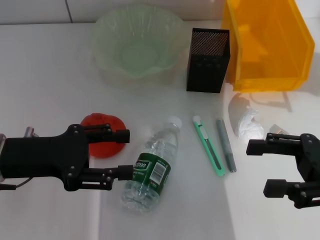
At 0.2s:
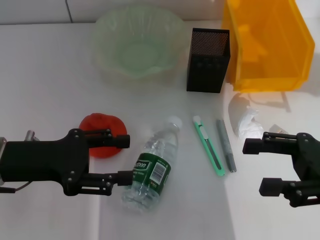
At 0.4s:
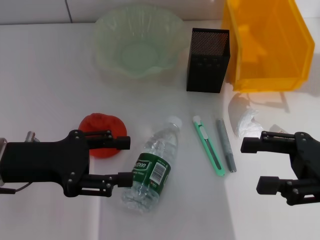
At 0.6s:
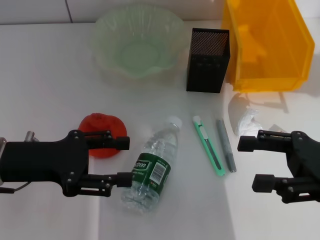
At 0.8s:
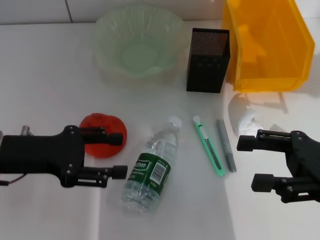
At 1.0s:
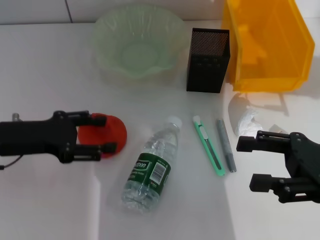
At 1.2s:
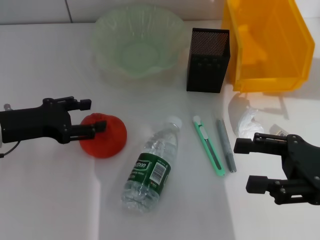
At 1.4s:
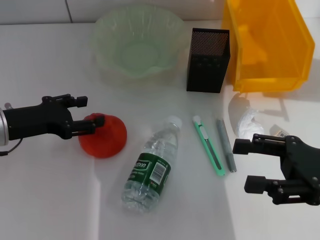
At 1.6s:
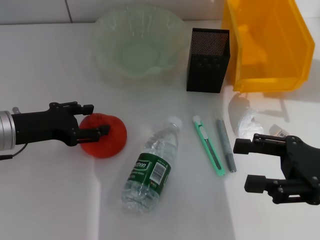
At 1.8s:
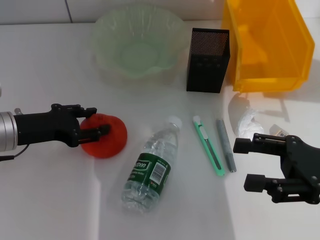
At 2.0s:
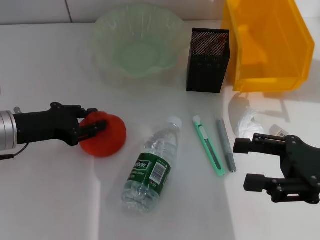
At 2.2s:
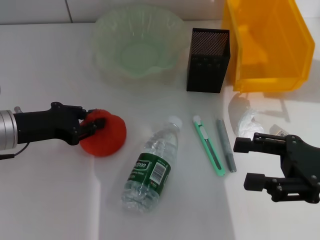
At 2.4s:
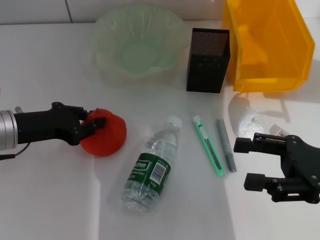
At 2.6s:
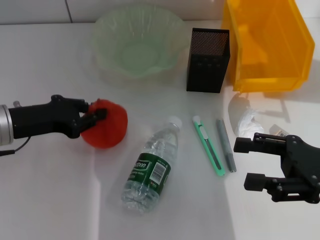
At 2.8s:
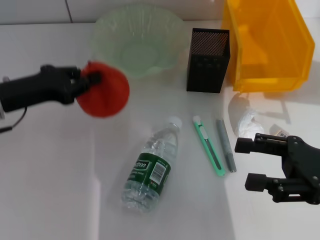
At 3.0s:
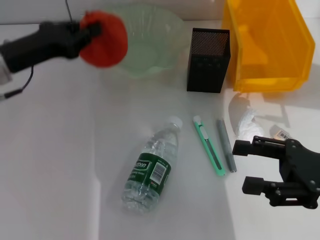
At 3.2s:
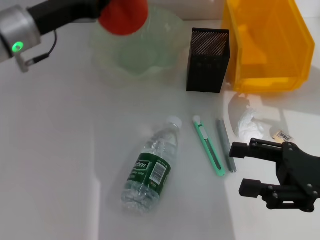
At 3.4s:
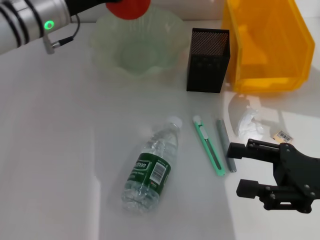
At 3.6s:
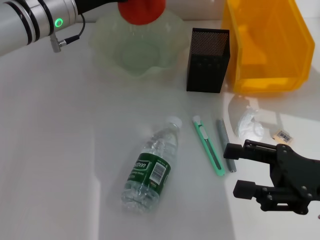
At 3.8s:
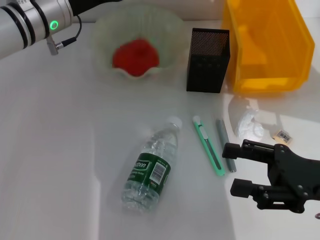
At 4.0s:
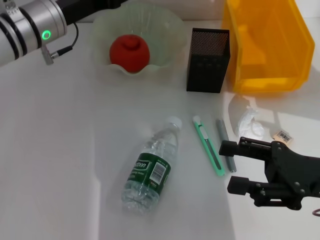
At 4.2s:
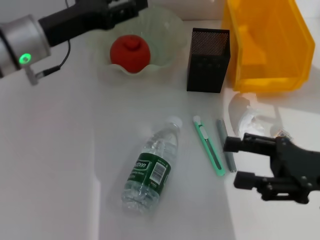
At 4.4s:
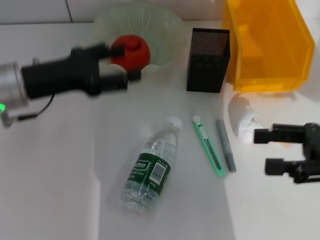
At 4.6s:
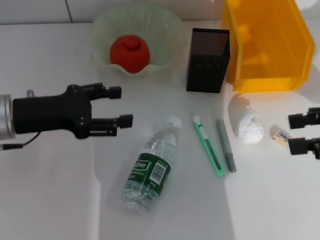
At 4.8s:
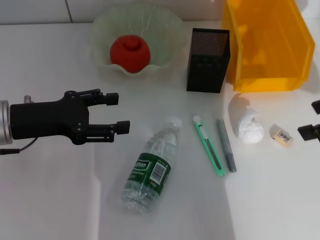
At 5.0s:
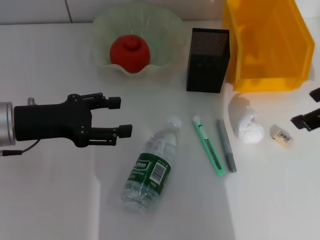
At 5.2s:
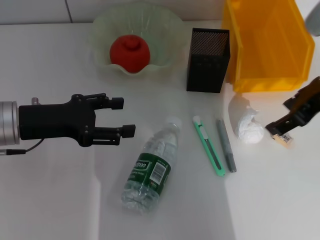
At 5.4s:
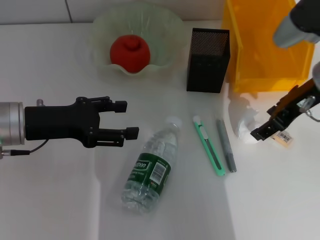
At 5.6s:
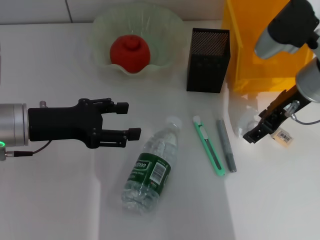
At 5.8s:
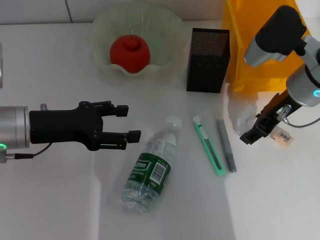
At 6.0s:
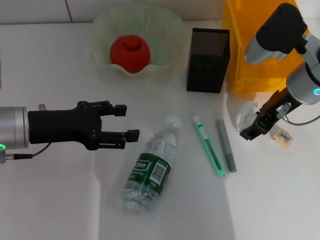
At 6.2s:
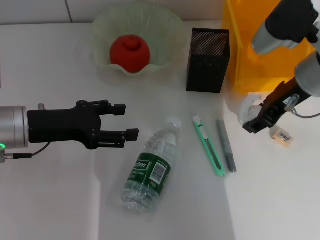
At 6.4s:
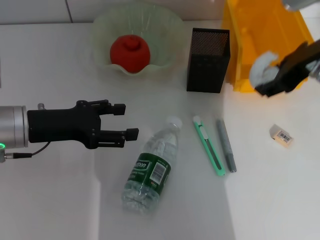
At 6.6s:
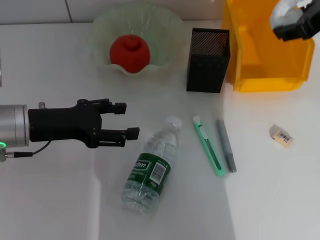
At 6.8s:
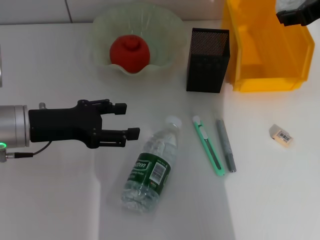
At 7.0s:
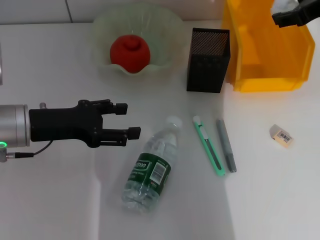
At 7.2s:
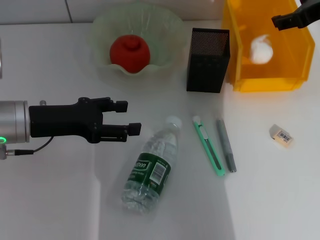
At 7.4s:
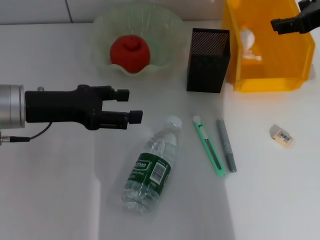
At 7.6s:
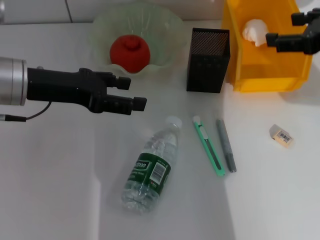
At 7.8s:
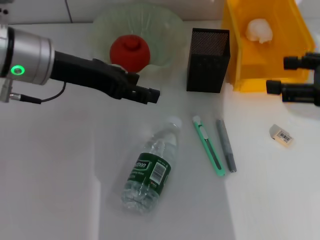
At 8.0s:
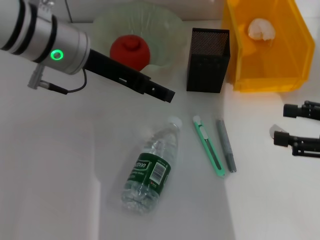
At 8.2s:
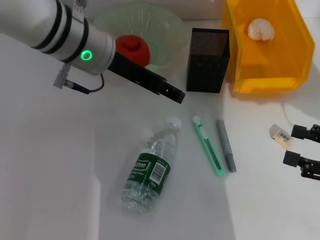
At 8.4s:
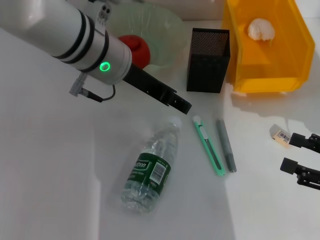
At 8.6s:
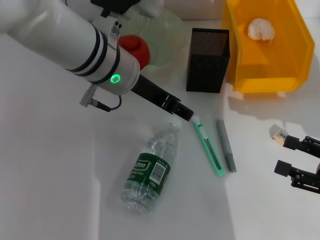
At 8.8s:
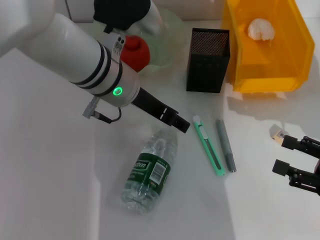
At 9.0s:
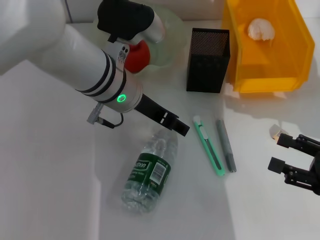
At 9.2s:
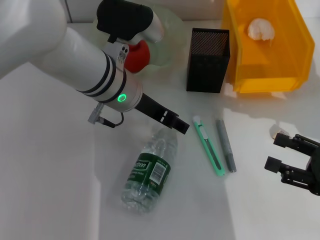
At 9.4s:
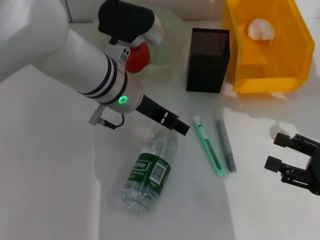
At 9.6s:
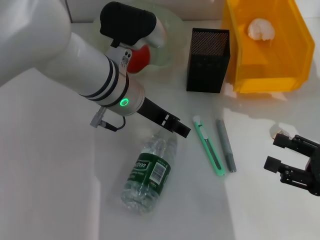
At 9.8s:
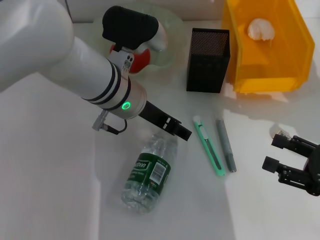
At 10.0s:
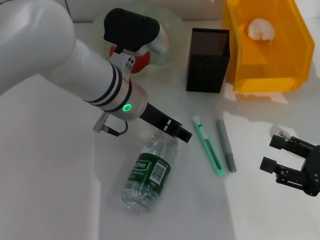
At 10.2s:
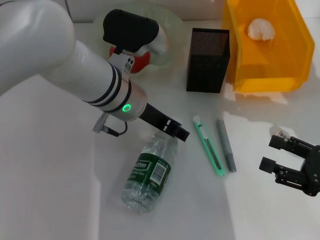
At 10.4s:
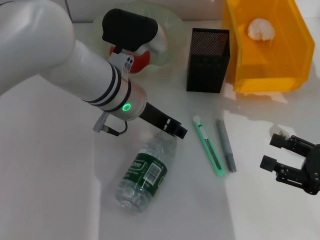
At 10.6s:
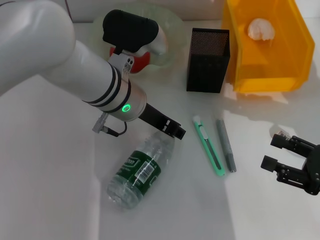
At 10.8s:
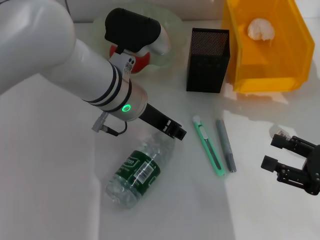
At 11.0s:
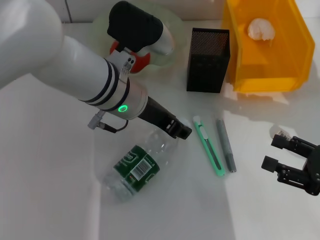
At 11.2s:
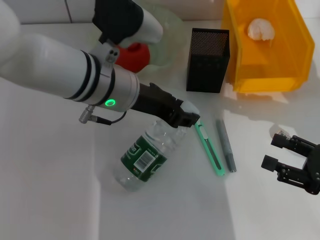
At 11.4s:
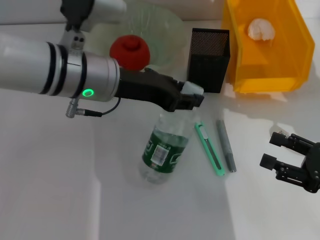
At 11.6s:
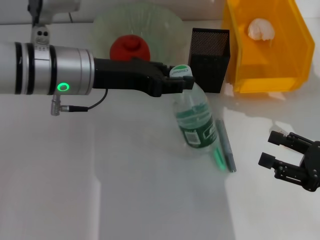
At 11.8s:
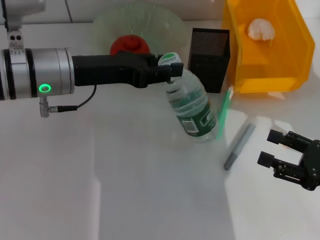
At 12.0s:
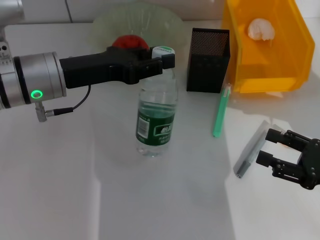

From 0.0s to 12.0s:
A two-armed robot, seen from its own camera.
Step, from 0.0s to 2.2s: Grab the orange with the left hand.
Step, from 2.4s to 4.0s: Place the orange into the fruit bowl with the left hand.
Step, from 4.2s to 5.8s: Grab the paper ball with the right hand.
Step, from 6.0s to 7.6s: Place the paper ball into the trash can with the right hand.
Step, from 7.8s to 10.6s: Grab the water bottle with the left hand.
From 0.0s to 1.6s: The left gripper changes place by about 5 cm.
From 1.6s to 3.0s: The left gripper goes some 5 cm upward, and closes.
From 3.0s to 4.4s: The left gripper reaches roughly 10 cm forward, then returns, and opens. Meanwhile the right gripper moves some 5 cm.
From 4.4s to 6.0s: The right gripper goes approximately 15 cm forward and to the left.
From 6.0s to 7.6s: The right gripper goes approximately 15 cm to the right, upward and backward. Meanwhile the left gripper is displaced upward by approximately 10 cm.
From 7.6s to 9.0s: The left gripper travels to the right by about 15 cm; the right gripper travels downward and backward by approximately 20 cm.
From 9.0s to 10.4s: The grippers stay close to where they were, moving slightly.
From 10.4s to 12.0s: The left gripper shifts roughly 10 cm to the left, and closes up.

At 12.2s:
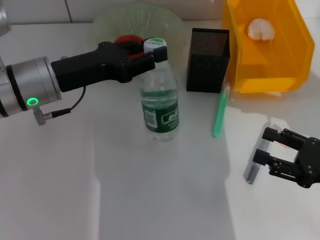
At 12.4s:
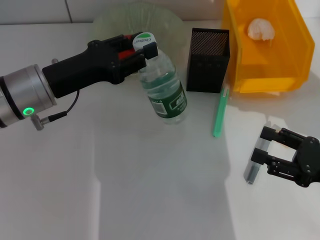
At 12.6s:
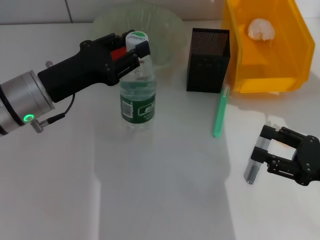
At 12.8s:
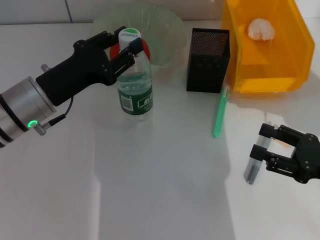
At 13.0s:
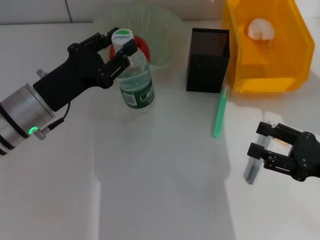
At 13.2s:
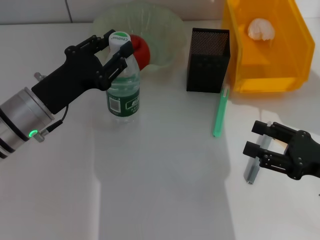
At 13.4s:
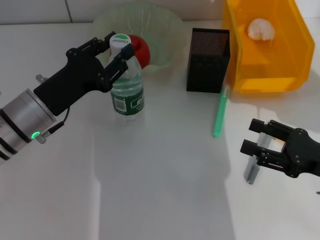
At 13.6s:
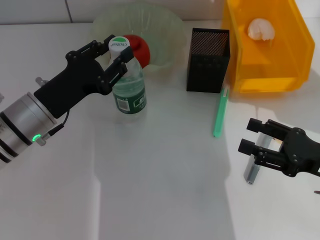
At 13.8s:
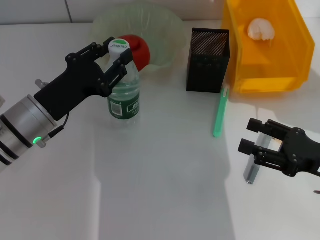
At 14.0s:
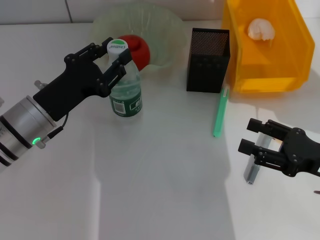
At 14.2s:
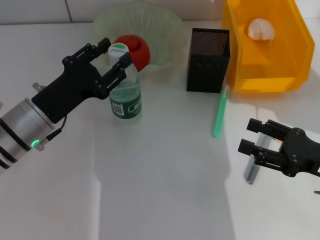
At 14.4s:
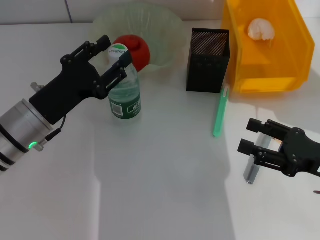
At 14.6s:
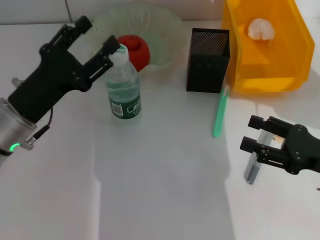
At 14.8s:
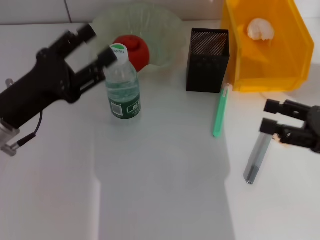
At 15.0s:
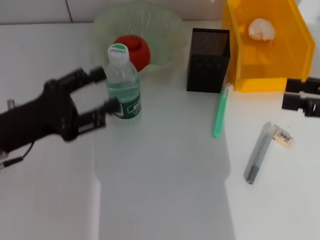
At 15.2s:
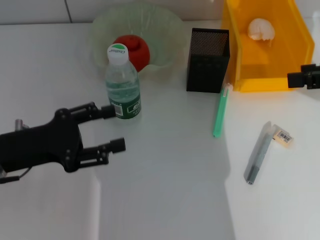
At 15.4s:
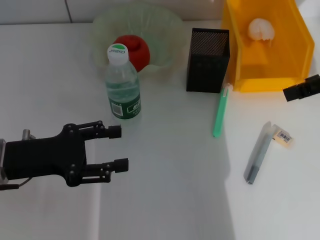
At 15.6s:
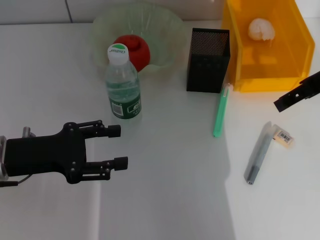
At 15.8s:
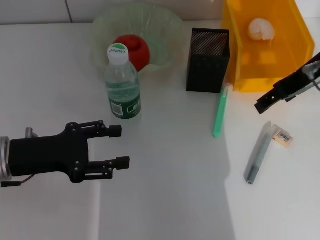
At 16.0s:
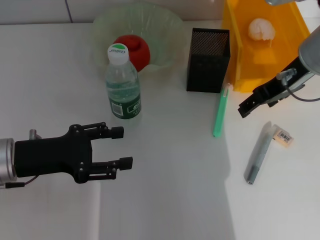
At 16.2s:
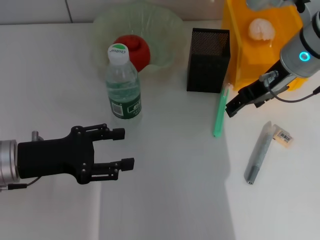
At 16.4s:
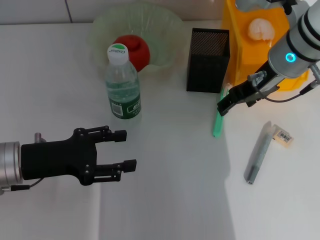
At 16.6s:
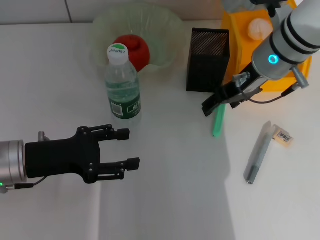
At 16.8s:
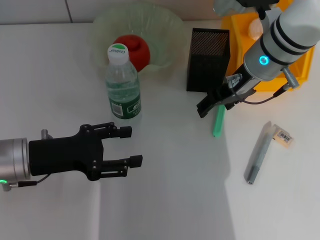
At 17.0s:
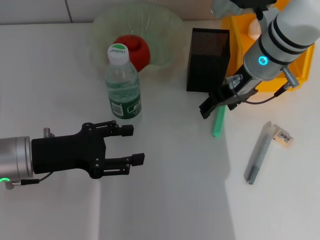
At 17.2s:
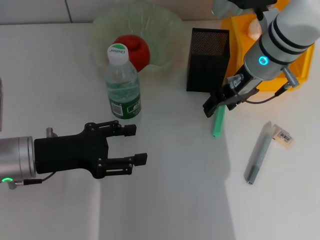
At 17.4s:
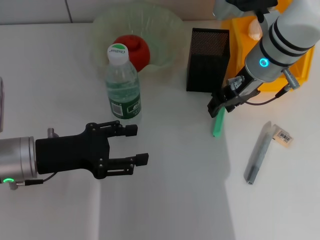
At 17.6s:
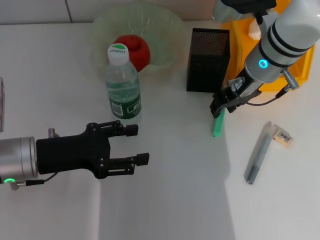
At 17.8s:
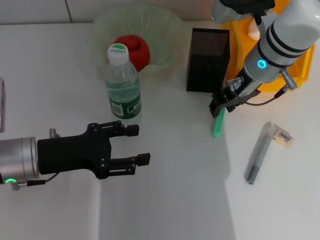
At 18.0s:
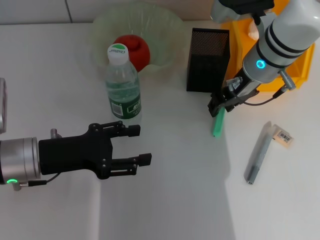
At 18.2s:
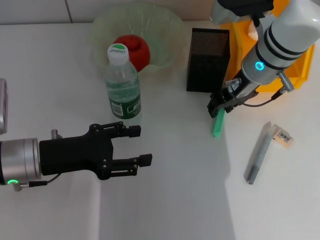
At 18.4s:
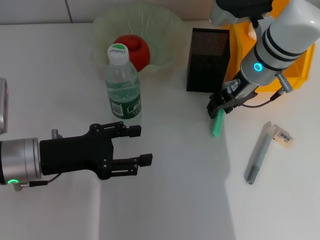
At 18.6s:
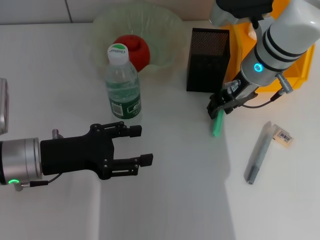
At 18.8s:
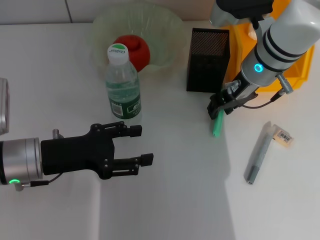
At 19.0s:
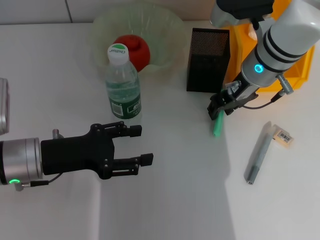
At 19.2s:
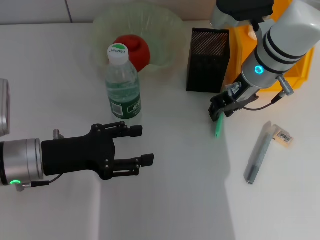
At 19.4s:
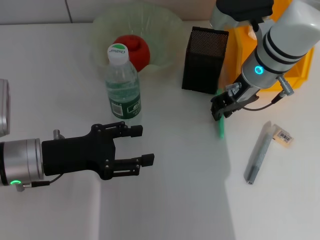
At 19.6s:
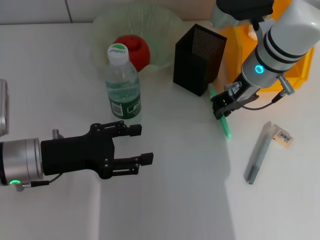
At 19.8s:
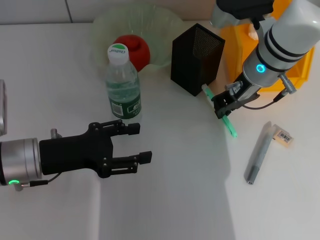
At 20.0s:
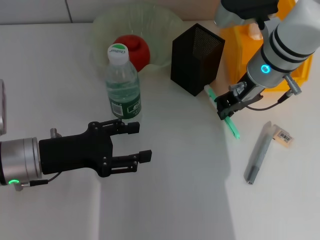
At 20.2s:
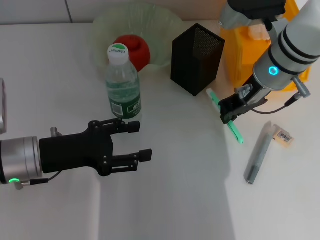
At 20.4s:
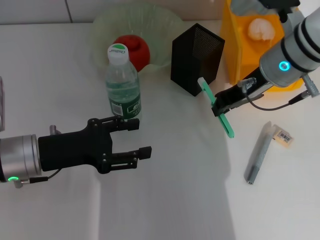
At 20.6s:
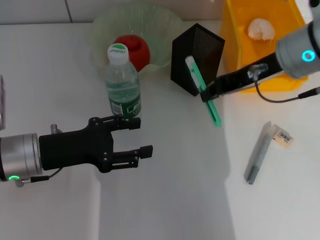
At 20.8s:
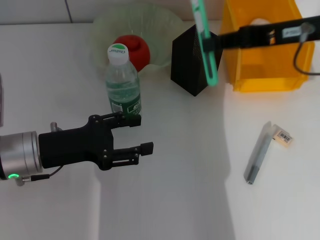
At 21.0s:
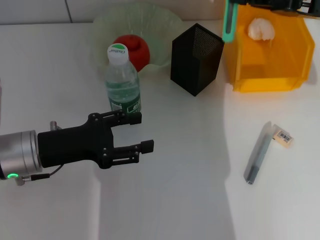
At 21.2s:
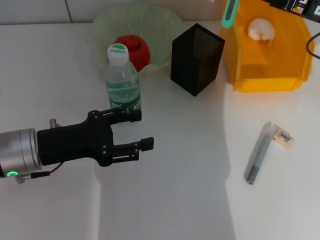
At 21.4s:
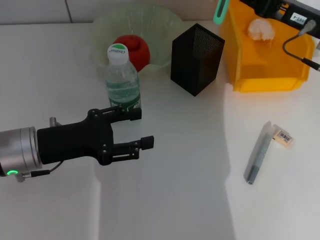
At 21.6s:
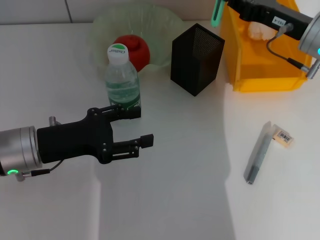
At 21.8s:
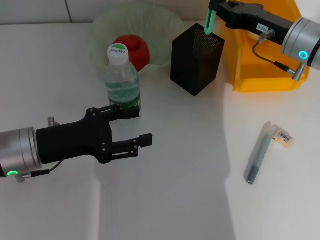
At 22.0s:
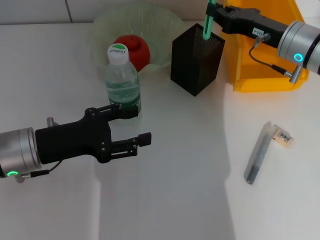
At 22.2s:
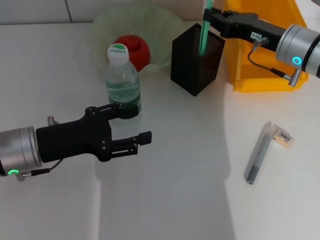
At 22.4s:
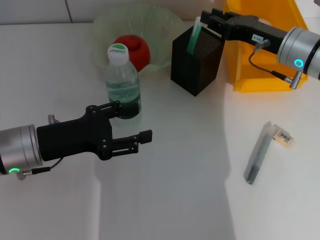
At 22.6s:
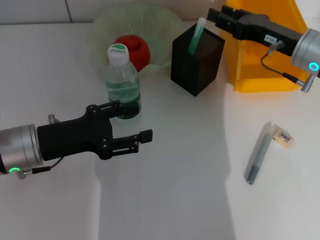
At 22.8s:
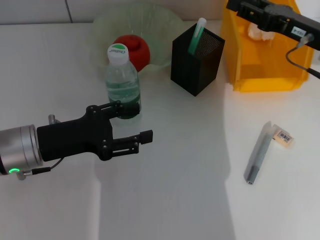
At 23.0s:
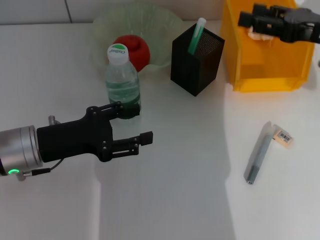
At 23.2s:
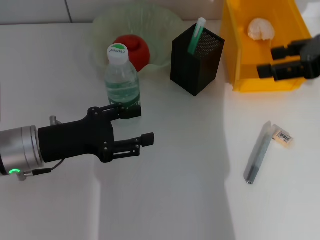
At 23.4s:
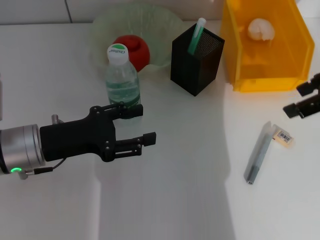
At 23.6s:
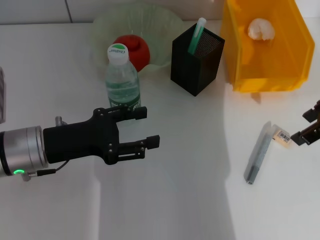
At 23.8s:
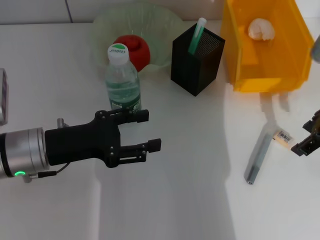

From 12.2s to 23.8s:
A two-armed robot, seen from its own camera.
Step, from 12.2s to 14.4s: Place the water bottle on the table with the left hand.
Step, from 14.6s to 19.6s: Grab the blue utility knife with the right hand.
Step, from 20.0s to 22.6s: Place the blue utility knife into the pen holder with the right hand.
From 12.2s to 13.6s: The left gripper heads downward, covering approximately 5 cm.
From 13.6s to 15.0s: The left gripper heads to the left, covering approximately 5 cm, and opens up. Meanwhile the right gripper travels upward by some 10 cm.
From 15.0s to 16.6s: The right gripper is displaced to the left and forward by roughly 25 cm.
From 16.6s to 18.0s: The right gripper closes.
From 18.0s to 19.4s: Both grippers stay about where they are.
From 19.4s to 21.0s: The right gripper heads to the right, upward and backward, covering about 15 cm, and closes its fingers.
From 21.0s to 22.4s: The right gripper is displaced downward and forward by approximately 10 cm.
From 22.4s to 23.8s: The right gripper travels upward and backward by approximately 10 cm, and opens up.
